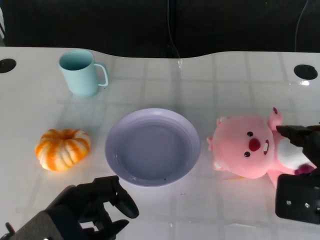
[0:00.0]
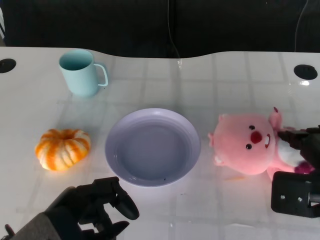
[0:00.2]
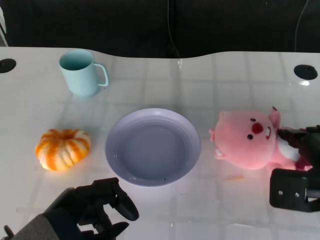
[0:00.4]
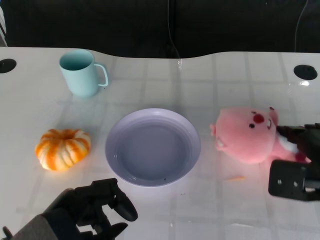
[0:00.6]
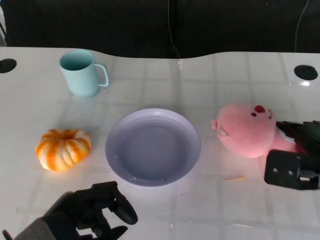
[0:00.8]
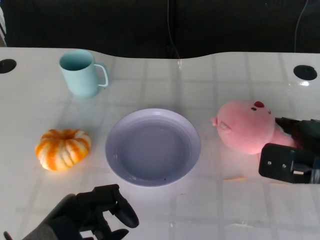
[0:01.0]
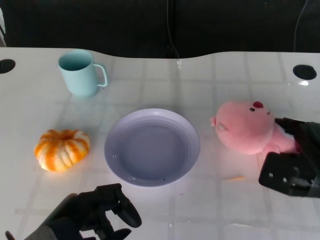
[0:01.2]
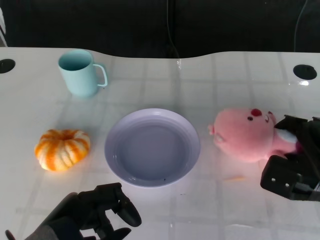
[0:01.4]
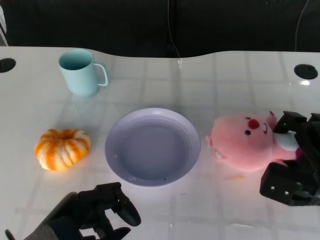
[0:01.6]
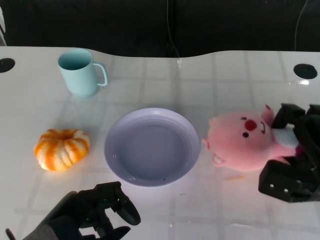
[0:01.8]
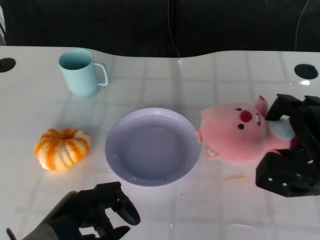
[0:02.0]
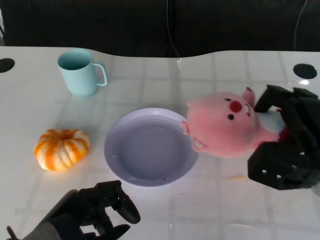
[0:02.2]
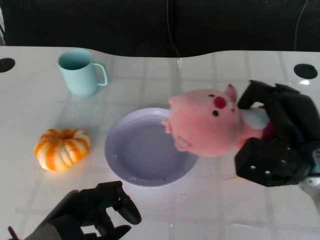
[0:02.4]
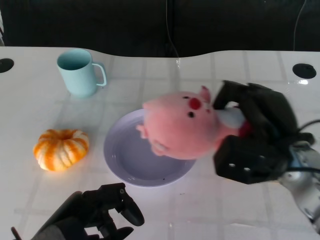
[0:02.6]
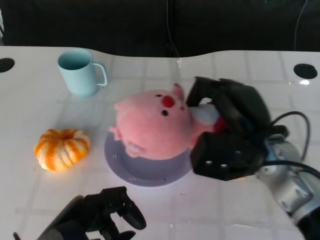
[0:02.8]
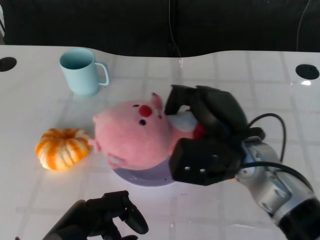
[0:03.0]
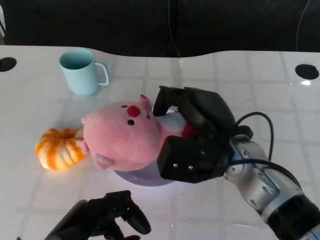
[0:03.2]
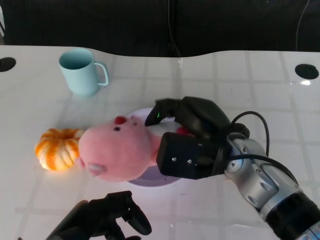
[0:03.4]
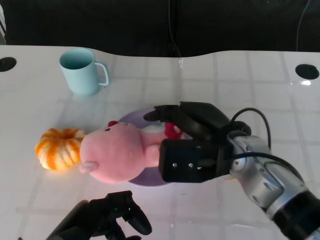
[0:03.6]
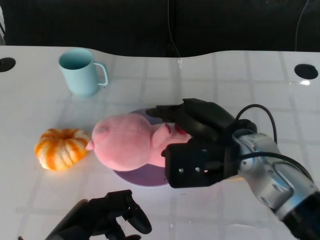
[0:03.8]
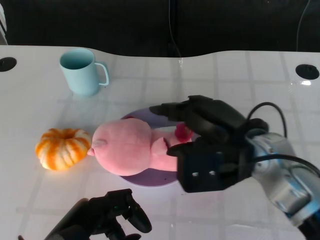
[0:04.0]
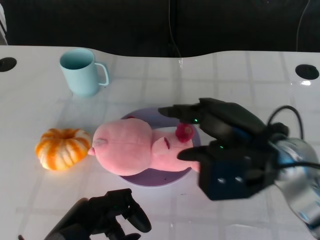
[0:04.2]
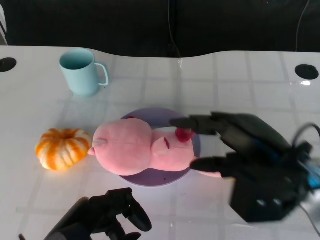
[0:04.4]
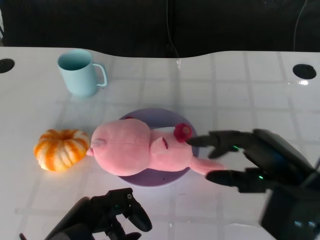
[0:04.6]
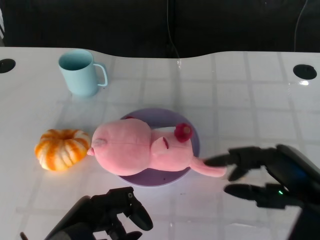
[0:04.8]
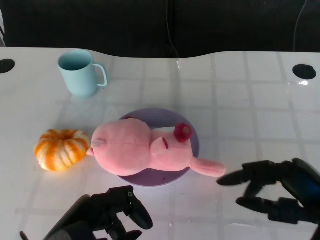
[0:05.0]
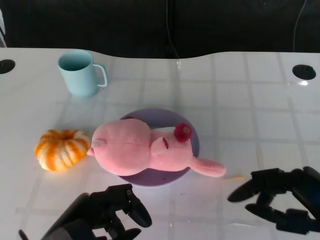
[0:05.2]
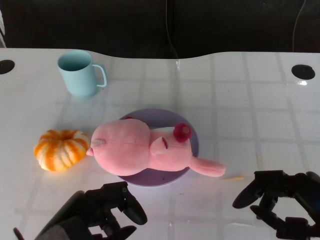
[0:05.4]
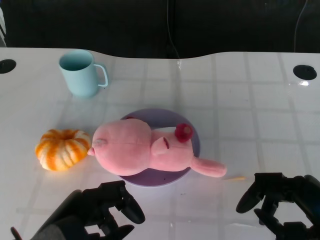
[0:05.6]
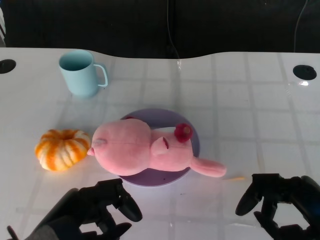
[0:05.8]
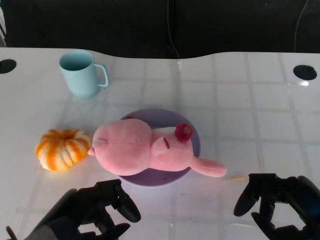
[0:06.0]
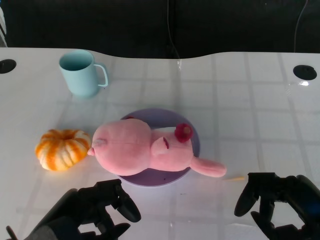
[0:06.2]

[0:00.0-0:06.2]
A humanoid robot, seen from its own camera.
Task of the whole recording: Pick up the doll on the other side of the plate and place it into the plate.
Step, 0:00.0 to 0:02.6: Grasp the pink doll with the right gripper.
Step, 0:02.8 to 0:04.4: Place the pink doll into the plate with the right gripper.
0:00.0 to 0:01.6: The right hand shifts some 10 cm downward and forward.
0:01.6 to 0:03.2: The right hand goes some 15 cm to the left and upward.
0:03.2 to 0:04.6: The right hand is displaced to the right and backward by about 15 cm.
0:04.6 to 0:06.2: The right hand heads backward, covering approximately 5 cm.

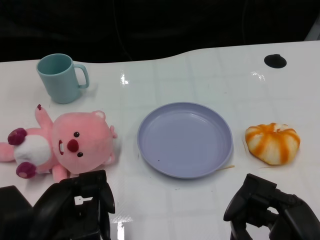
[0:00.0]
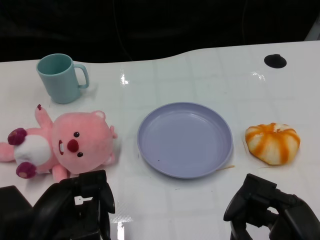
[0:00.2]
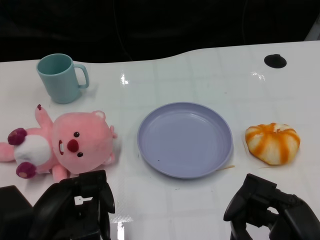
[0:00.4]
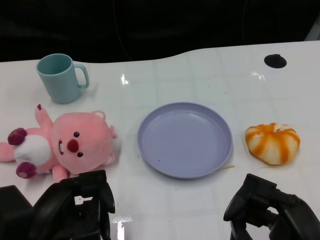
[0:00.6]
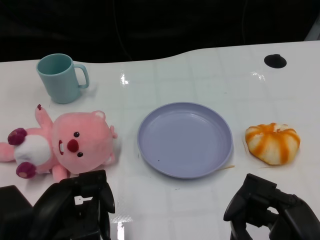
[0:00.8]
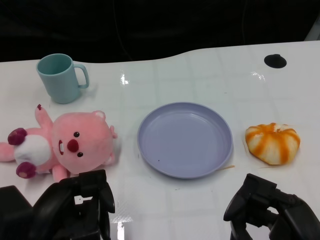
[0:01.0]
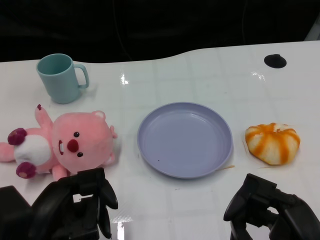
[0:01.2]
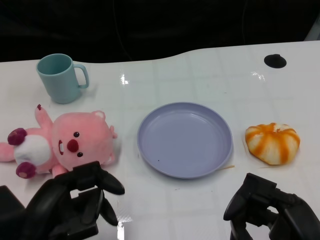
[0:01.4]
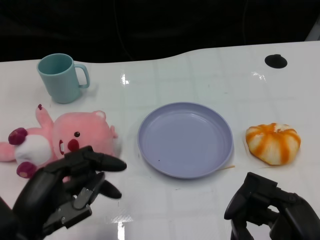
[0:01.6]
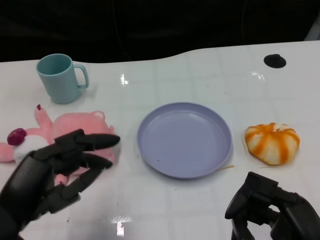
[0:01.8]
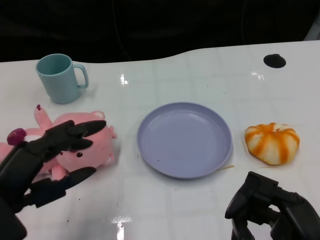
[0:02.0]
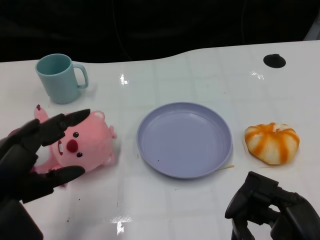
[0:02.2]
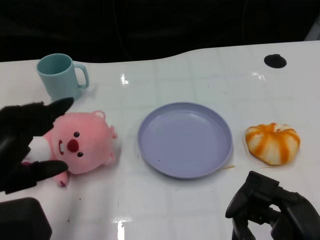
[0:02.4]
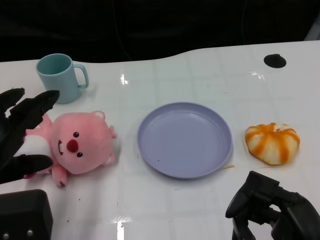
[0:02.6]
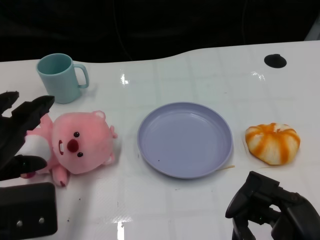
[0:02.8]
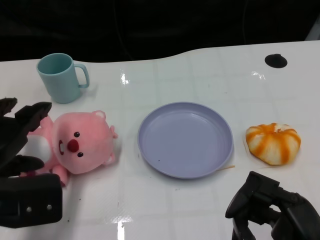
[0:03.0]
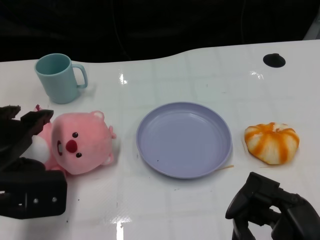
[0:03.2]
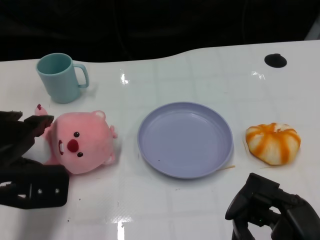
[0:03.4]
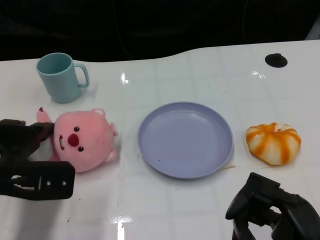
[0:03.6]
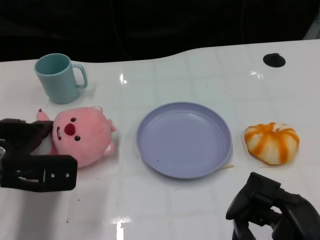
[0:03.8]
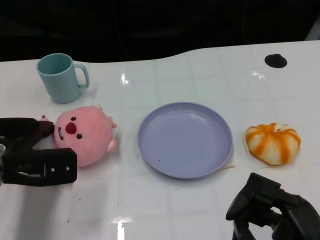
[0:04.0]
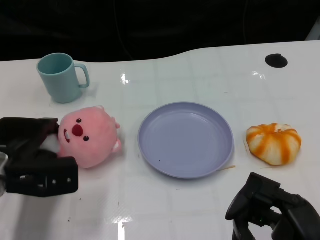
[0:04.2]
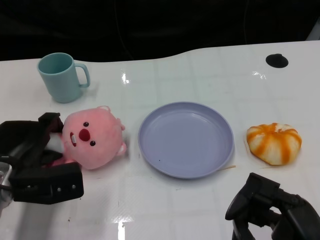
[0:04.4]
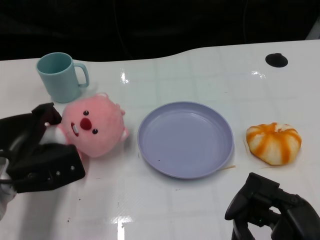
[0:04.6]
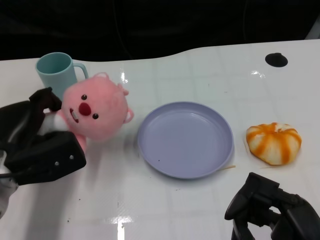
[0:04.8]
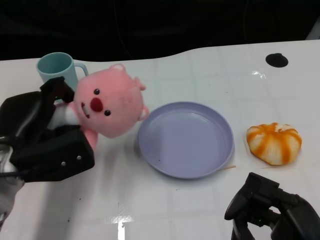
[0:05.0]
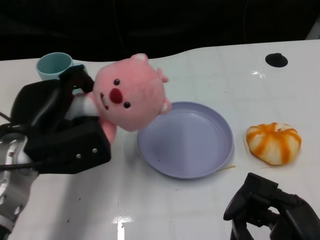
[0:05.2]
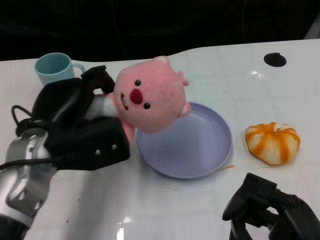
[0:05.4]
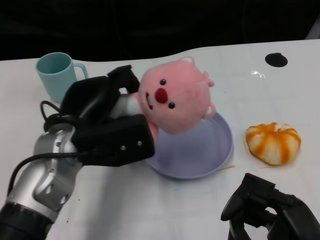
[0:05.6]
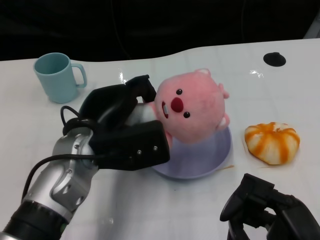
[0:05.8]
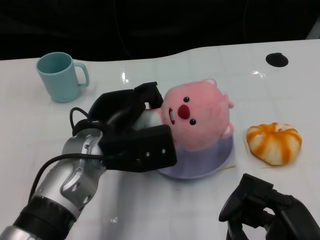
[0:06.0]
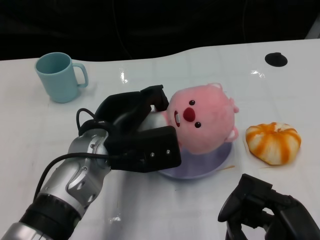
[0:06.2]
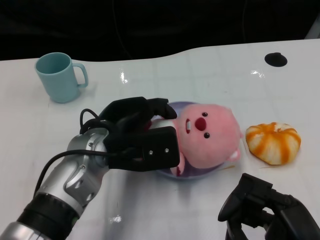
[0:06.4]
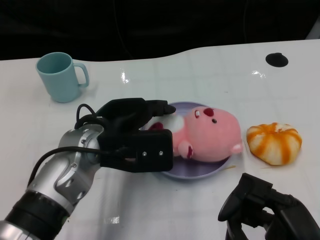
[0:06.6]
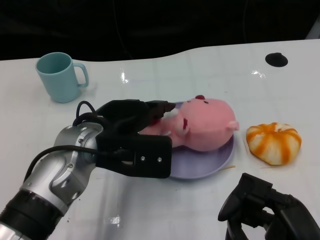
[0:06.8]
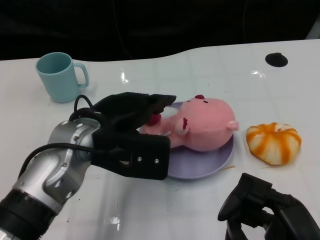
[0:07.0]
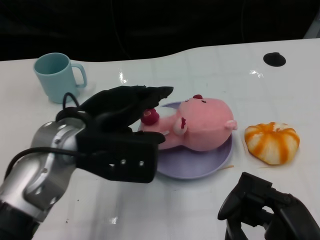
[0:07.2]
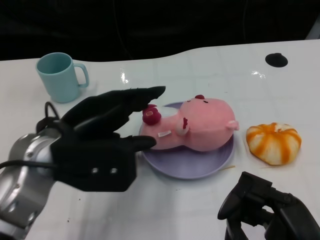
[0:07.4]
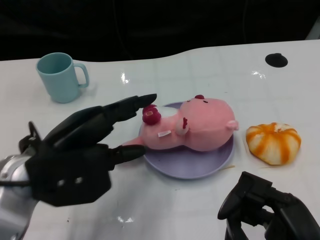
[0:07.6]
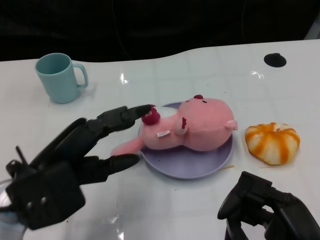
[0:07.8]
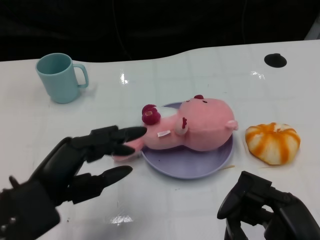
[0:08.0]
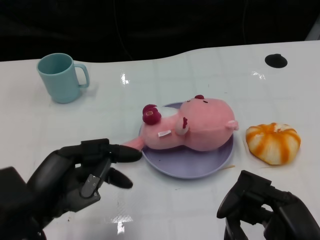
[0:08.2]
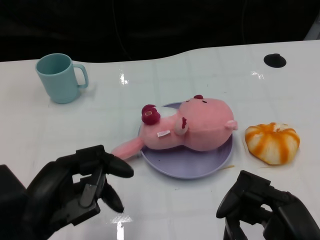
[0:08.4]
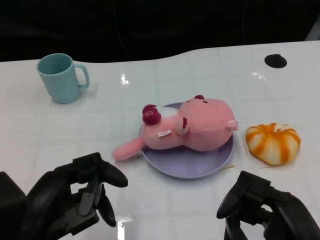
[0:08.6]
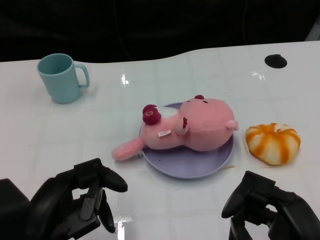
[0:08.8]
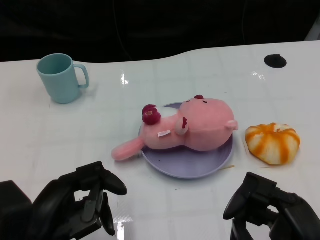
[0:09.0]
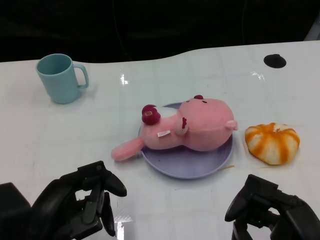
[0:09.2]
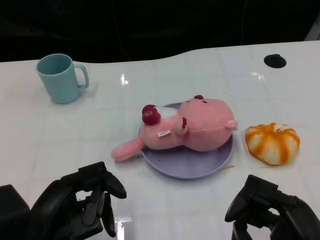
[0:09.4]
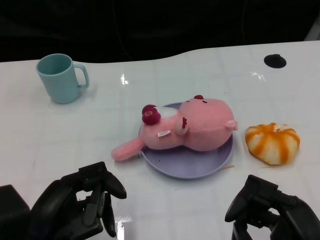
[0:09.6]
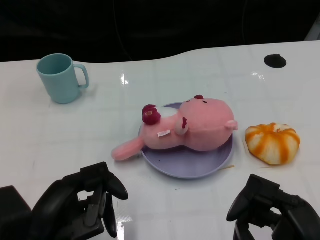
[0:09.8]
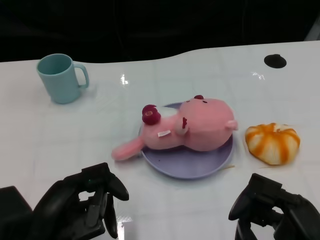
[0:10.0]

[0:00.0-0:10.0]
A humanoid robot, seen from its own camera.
Task of the whole recording: Pick up the doll on one side of the plate and place it into the plate.
Step, 0:01.2 to 0:04.6: Grasp the pink doll with the left gripper.
Step, 0:04.8 to 0:07.0: Place the pink doll into the plate with the left gripper.
0:01.4 to 0:02.8: The left hand is displaced upward and to the left by approximately 10 cm.
0:02.8 to 0:04.2: The left hand goes about 15 cm forward and downward.
0:04.2 to 0:05.8: The left hand moves to the right and upward, about 15 cm.
0:07.2 to 0:08.6: The left hand moves backward and to the left, about 15 cm.
0:08.6 to 0:10.0: There are only small adjustments of the hands.

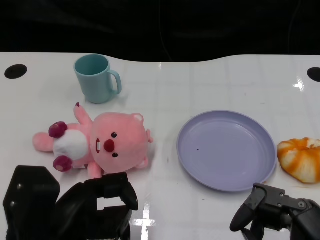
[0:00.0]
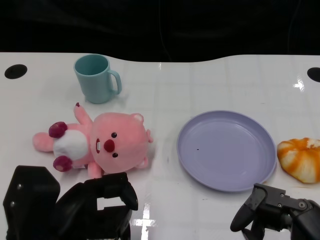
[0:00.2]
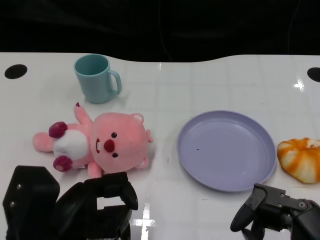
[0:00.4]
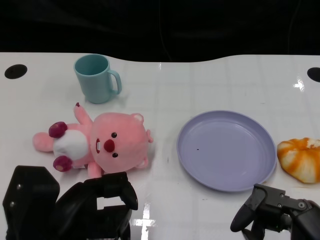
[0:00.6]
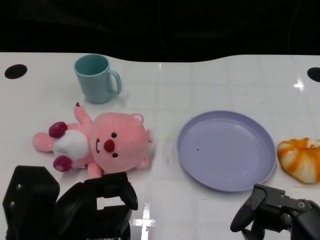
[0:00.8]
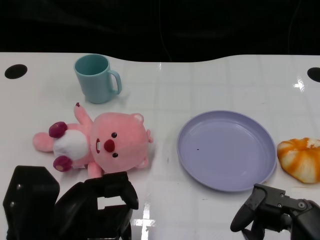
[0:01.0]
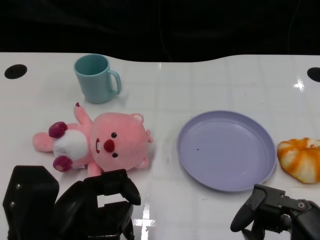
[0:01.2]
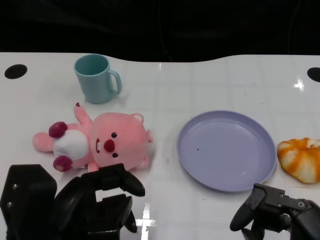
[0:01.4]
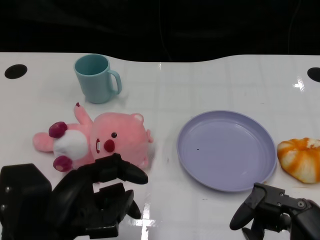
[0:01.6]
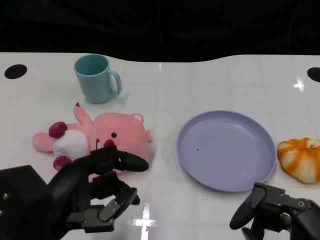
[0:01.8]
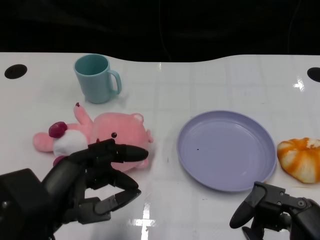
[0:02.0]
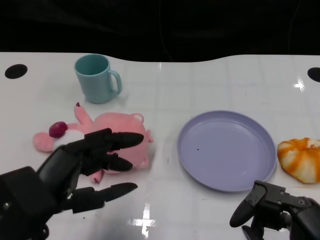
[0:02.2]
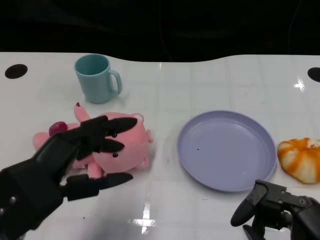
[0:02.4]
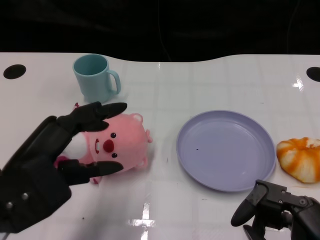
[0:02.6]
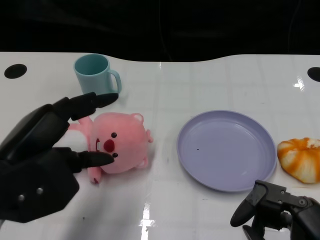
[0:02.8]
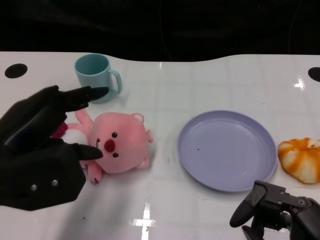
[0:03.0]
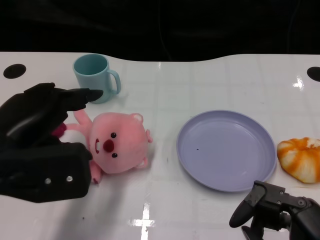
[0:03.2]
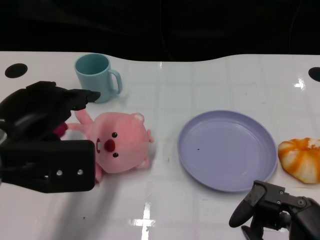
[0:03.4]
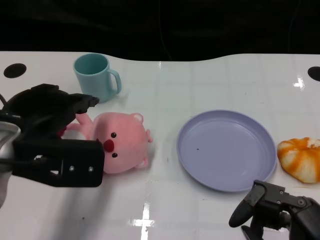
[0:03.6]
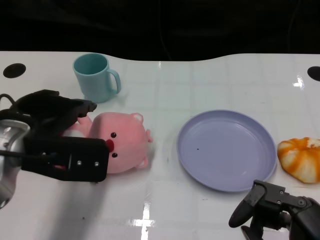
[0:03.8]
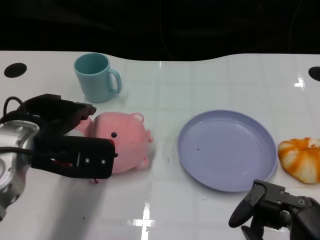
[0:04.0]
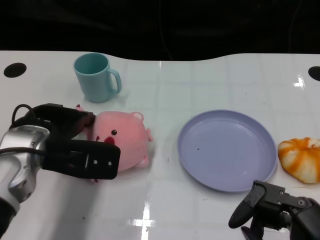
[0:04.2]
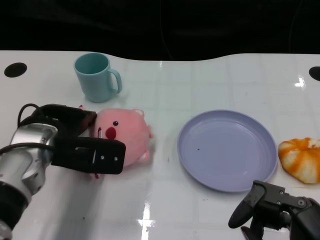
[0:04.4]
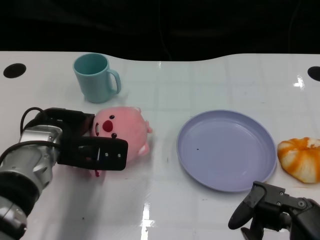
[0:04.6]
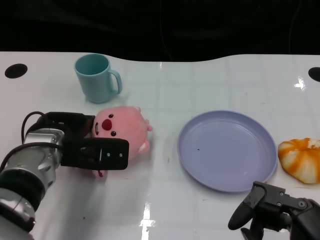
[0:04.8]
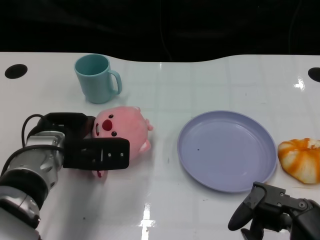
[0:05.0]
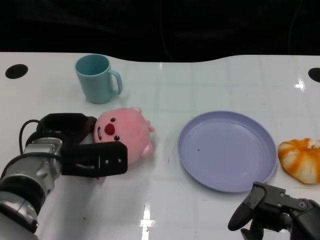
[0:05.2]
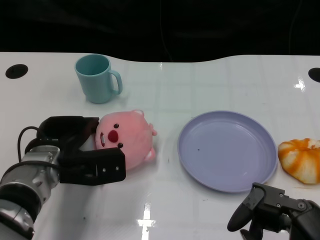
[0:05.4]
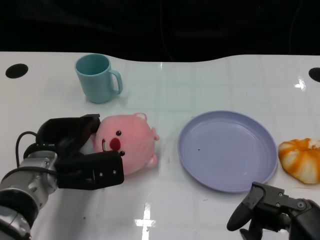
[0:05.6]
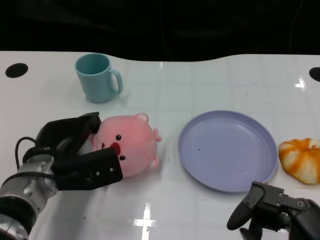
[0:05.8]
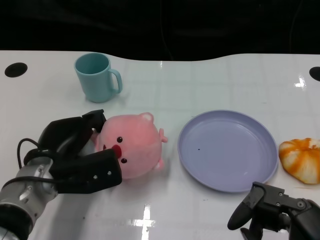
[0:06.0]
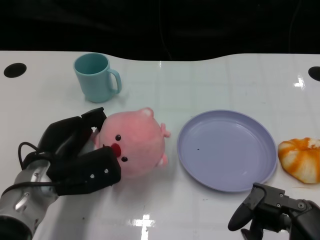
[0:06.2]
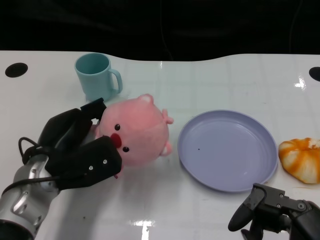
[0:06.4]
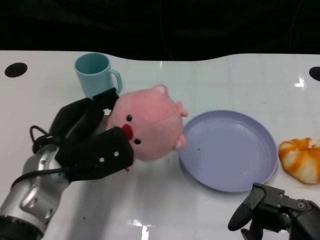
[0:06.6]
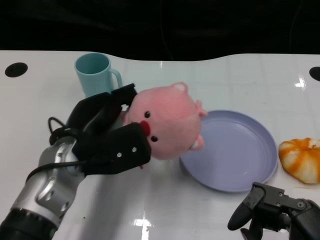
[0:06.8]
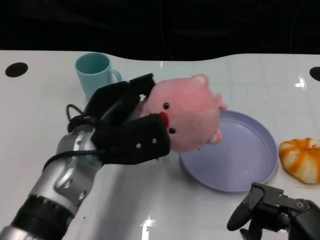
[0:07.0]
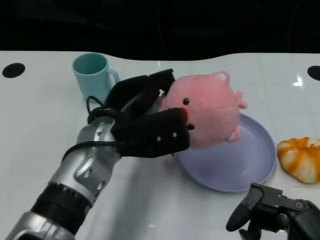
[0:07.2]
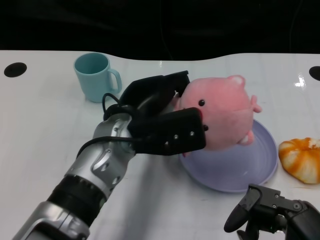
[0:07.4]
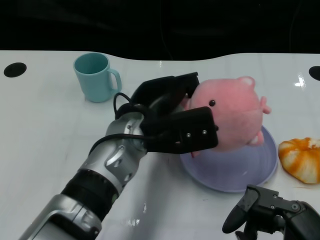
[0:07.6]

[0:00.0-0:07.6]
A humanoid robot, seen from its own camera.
Task of the whole recording: Pick up the doll on one side of the plate and place it into the plate.
Step, 0:01.0 to 0:05.8: Grasp the pink doll with the left gripper.
0:01.6 to 0:03.0: The left hand travels upward and forward by some 10 cm.
0:03.0 to 0:04.6: The left hand moves forward and downward, some 15 cm.
0:04.6 to 0:06.0: The left hand ends up approximately 5 cm from where it was.
0:06.0 to 0:07.6: The left hand is displaced to the right and upward by approximately 15 cm.
